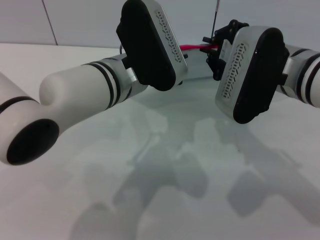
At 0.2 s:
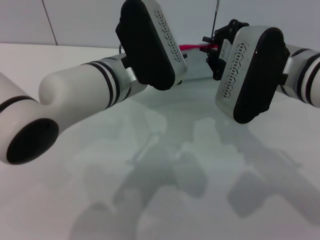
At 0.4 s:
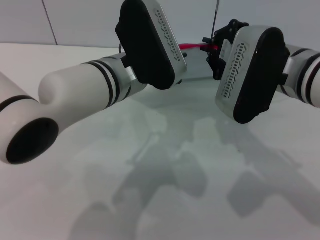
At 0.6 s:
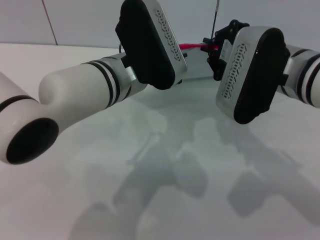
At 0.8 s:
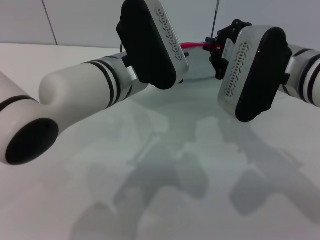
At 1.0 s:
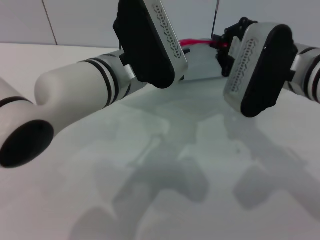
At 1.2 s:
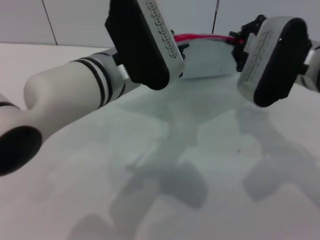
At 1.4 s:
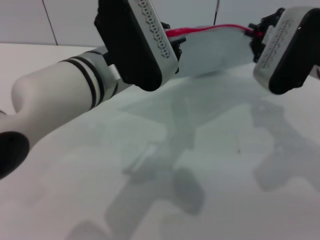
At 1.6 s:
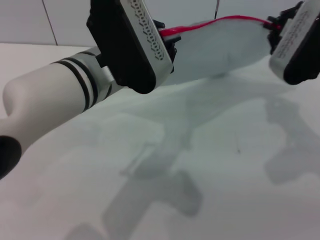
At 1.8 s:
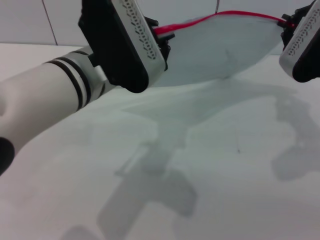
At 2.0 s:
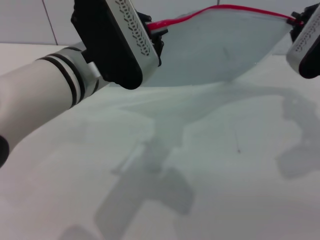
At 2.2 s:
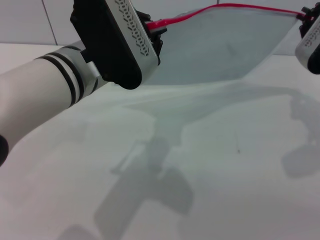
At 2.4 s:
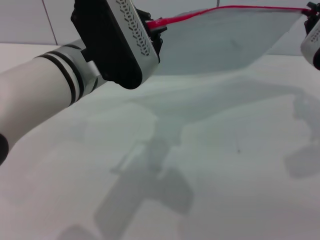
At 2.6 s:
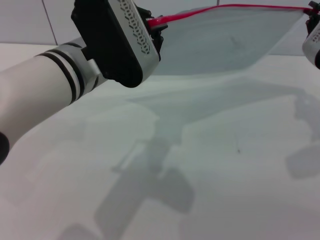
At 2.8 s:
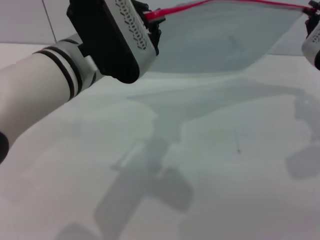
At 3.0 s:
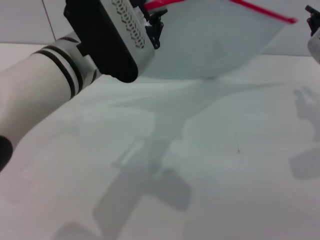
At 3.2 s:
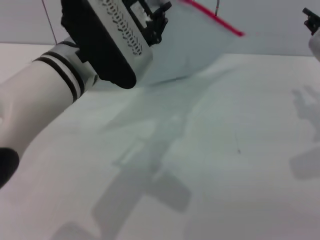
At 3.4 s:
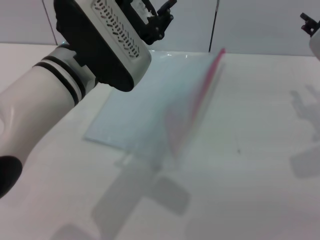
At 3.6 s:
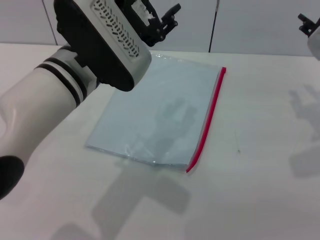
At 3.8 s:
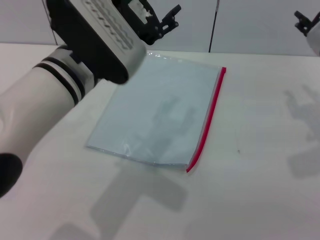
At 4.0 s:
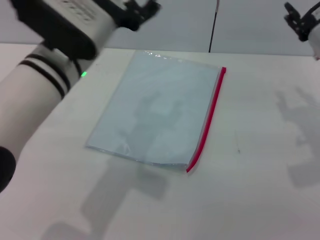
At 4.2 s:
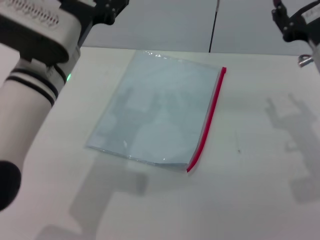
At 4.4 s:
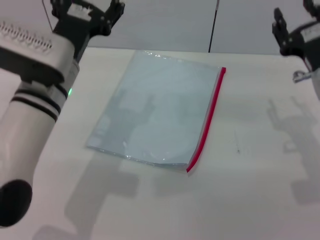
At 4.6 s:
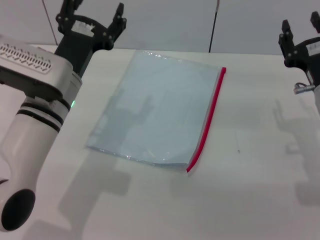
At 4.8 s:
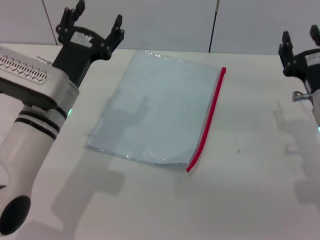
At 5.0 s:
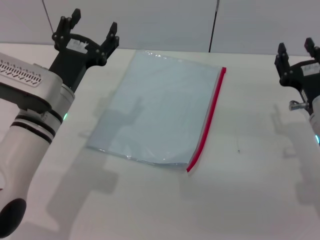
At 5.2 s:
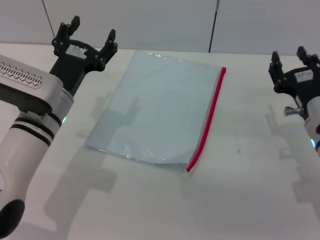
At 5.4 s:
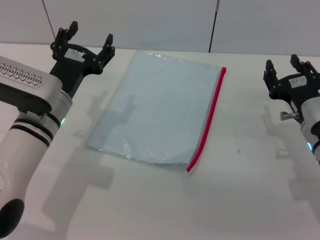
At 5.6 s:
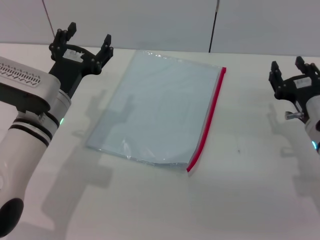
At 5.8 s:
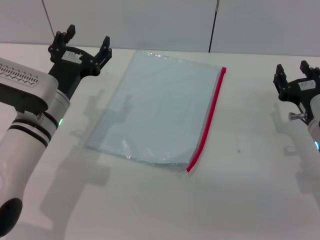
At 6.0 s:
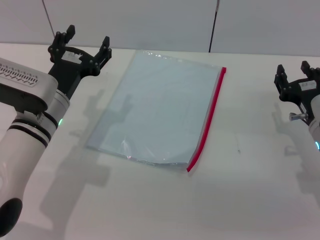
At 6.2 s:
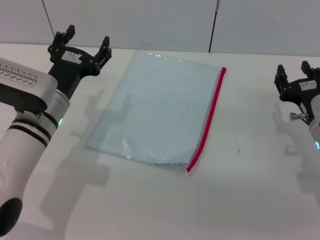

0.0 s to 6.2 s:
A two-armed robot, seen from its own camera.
Step, 0.0 to 3.2 s: Pulling up the zipper on the transparent plastic bag with the right gripper to close it.
Step, 3.6 to 4.0 s: Place the transparent plastic bag.
0.0 to 1.6 s: The right gripper moves to the right, about 5 cm.
3.2 to 4.6 s: The left gripper shifts about 10 cm downward and to the left, and opens; the right gripper shifts some 10 cm downward.
4.6 to 6.2 s: There are only small adjustments of the grippers.
